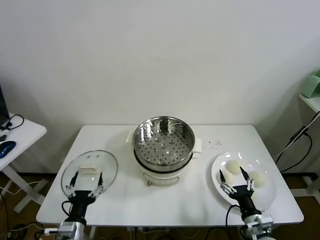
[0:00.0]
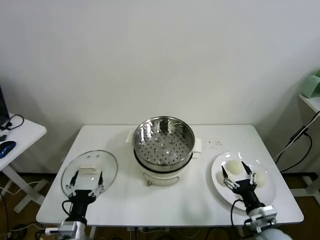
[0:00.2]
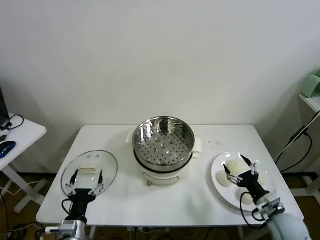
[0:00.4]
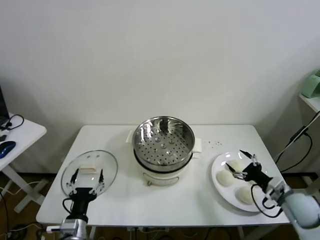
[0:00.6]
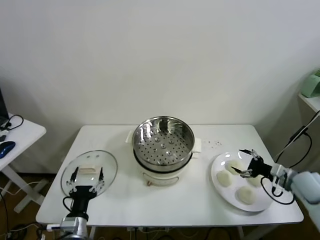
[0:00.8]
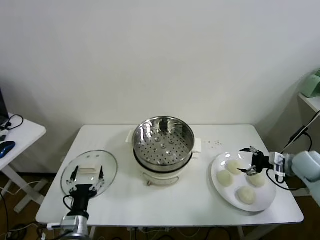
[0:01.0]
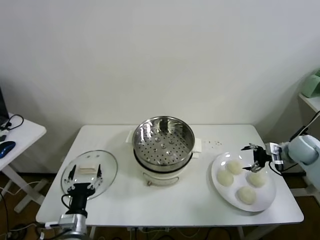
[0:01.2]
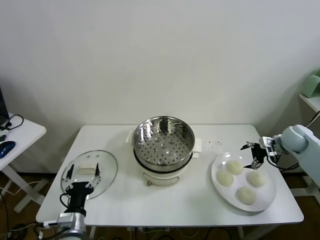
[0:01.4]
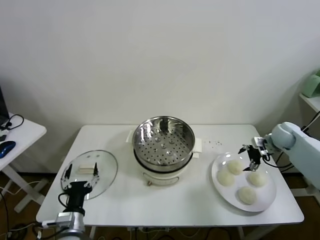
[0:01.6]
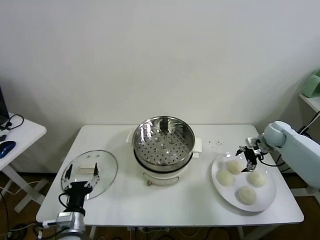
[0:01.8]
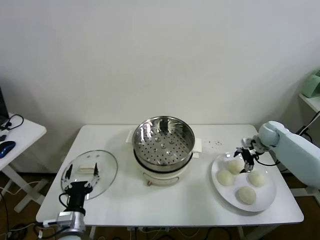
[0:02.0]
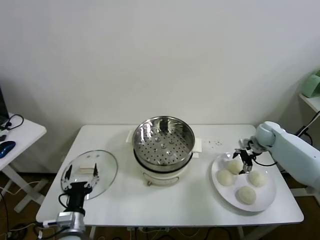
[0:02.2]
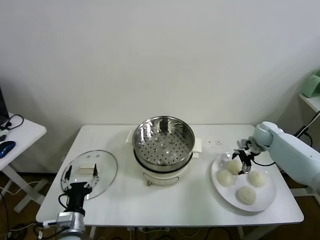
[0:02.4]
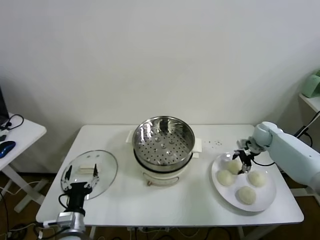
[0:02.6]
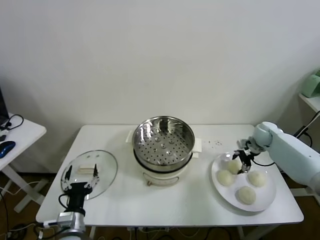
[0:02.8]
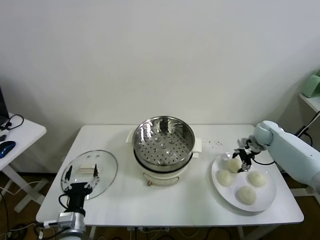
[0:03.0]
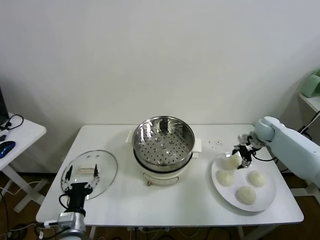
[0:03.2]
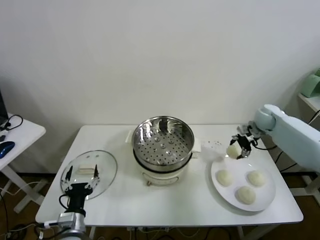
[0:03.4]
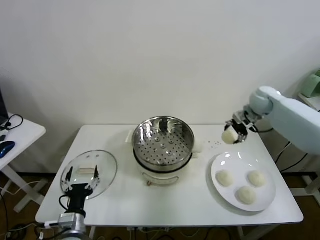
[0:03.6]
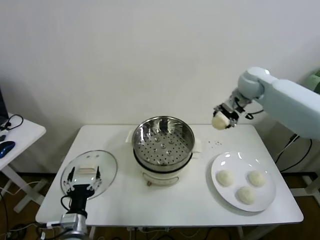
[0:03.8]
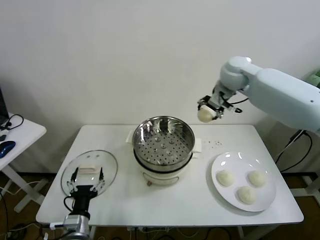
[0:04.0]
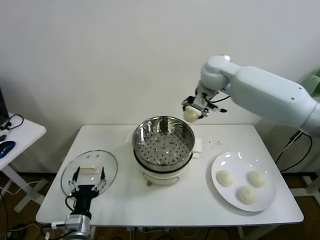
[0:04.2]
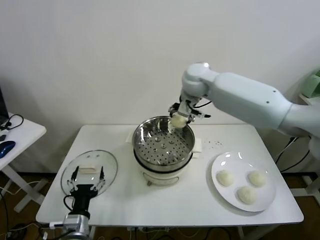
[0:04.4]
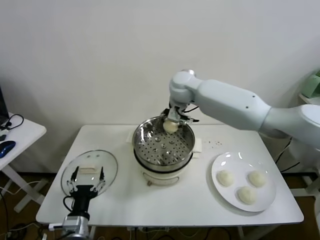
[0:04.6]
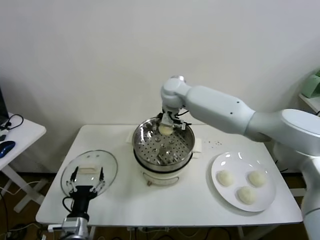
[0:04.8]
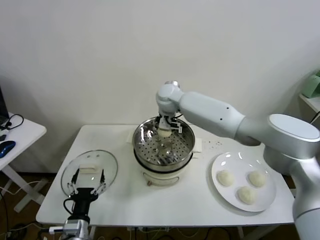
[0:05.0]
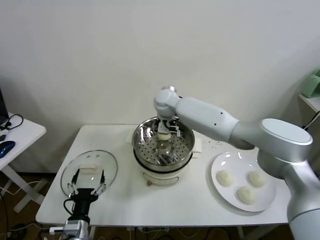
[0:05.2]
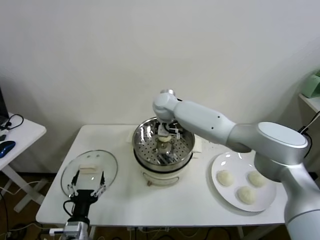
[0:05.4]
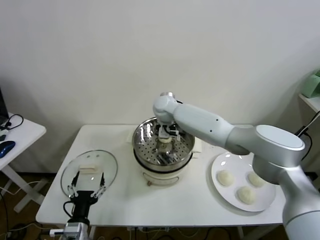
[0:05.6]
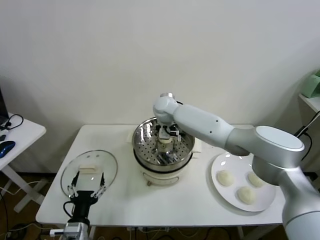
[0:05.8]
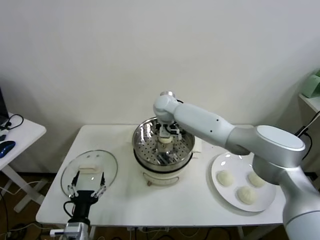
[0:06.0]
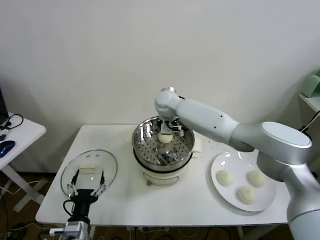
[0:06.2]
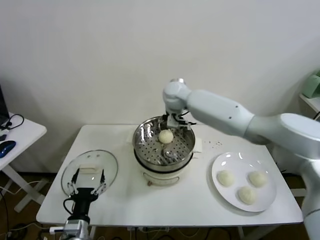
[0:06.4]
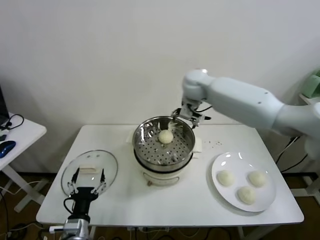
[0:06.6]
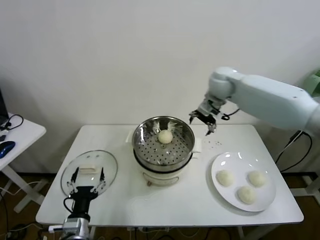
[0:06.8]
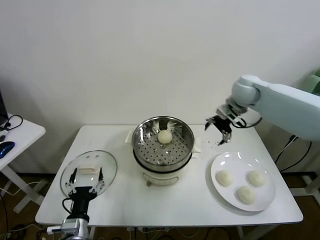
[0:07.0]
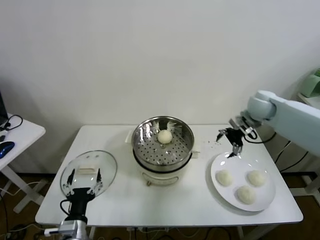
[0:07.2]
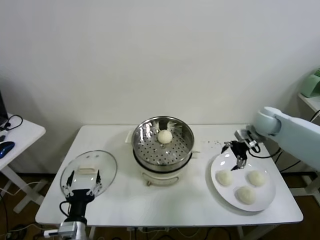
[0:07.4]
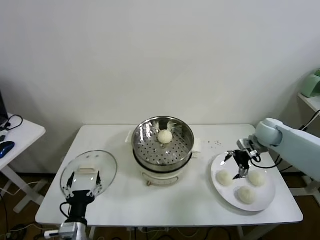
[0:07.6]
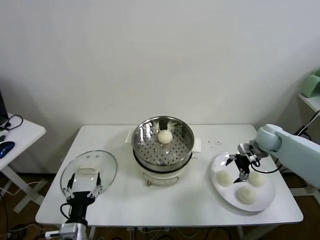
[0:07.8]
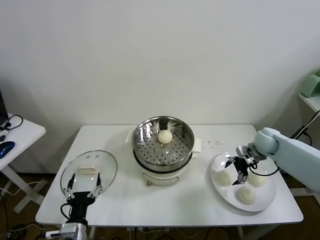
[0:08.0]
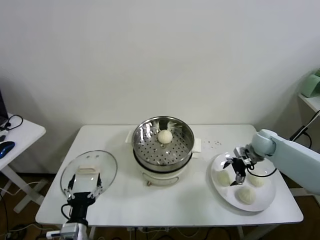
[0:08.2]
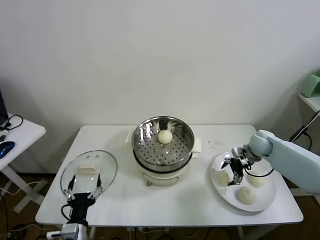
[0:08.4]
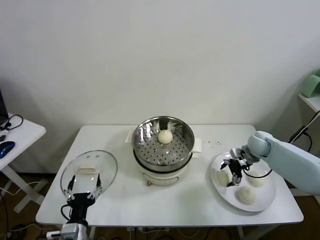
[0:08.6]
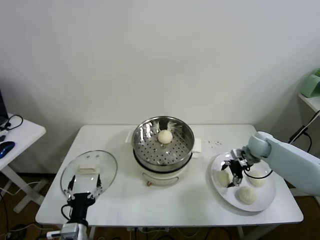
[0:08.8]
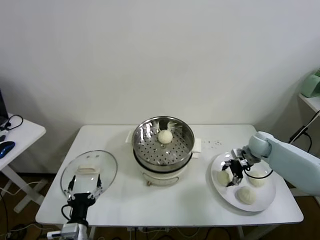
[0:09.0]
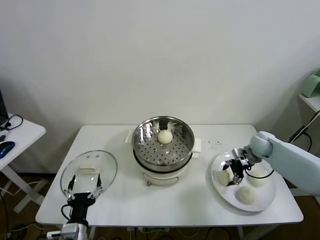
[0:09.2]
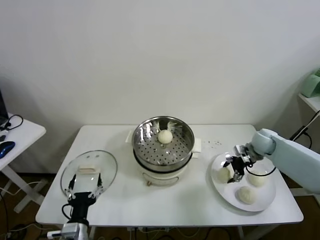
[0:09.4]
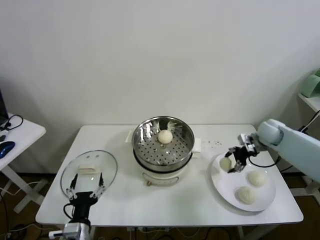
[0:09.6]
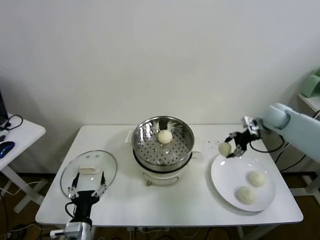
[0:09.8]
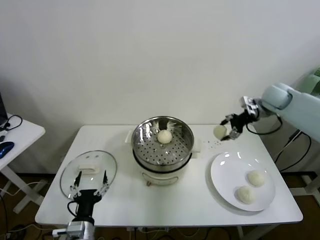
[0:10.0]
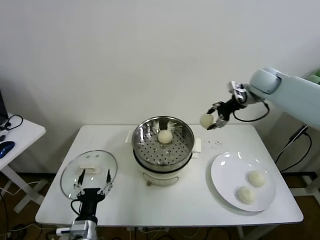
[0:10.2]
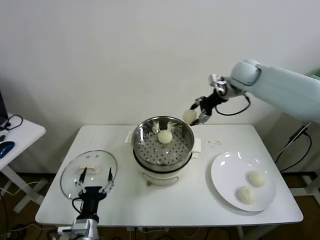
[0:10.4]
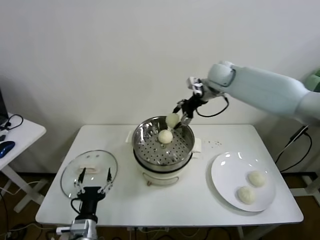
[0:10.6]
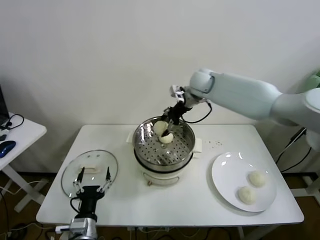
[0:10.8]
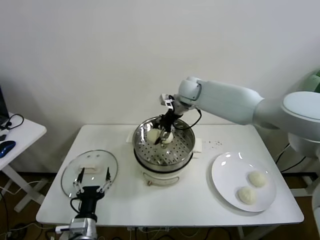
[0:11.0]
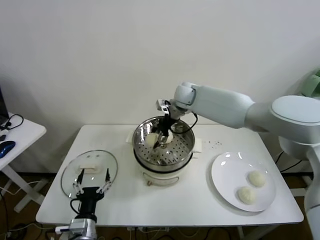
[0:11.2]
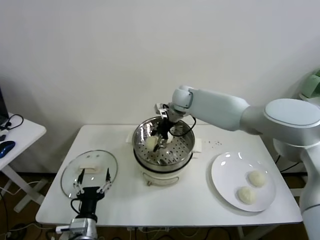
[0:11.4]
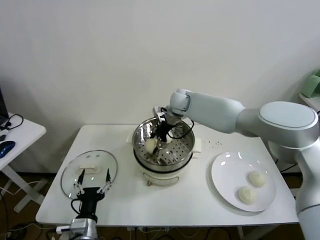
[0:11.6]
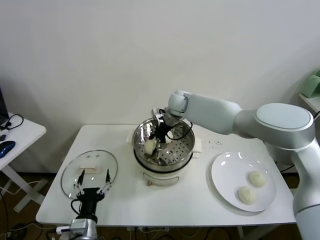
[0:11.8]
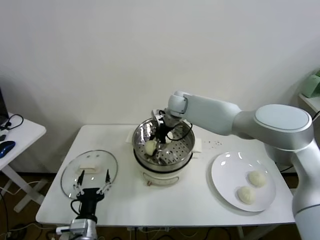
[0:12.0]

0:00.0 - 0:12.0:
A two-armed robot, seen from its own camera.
Task of the whole recording: take steamed baozi put them in steamer.
Step, 0:00.0 - 0:02.6: Grasp the baozi in the plate with right gripper.
Step, 0:02.8 - 0:06.0: Place the baozi on the steamer with right gripper.
Step, 0:06.4 - 0:09.0: Grasp the baozi in the plate with right gripper.
0:01.6 - 0:03.0: The right gripper closes.
0:03.0 - 0:04.4: The right gripper shifts roughly 40 cm to the left and upward.
0:04.4 - 0:06.0: The right gripper goes some 15 cm downward and to the left, and opens up.
0:06.0 - 0:07.6: The right gripper shifts roughly 40 cm to the right.
0:07.6 - 0:09.0: The right gripper goes approximately 5 cm downward, and closes.
0:09.0 - 0:10.4: The right gripper heads upward and to the left, covering about 30 cm.
0:10.4 - 0:12.0: The right gripper travels to the left and downward by roughly 20 cm.

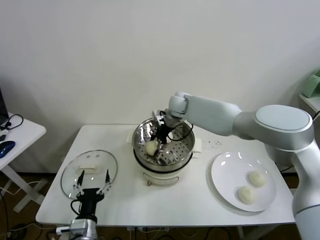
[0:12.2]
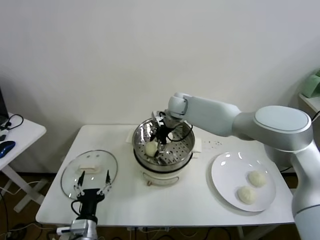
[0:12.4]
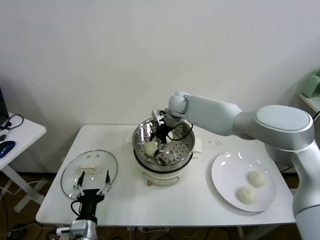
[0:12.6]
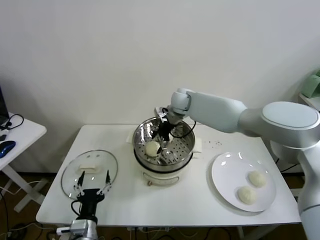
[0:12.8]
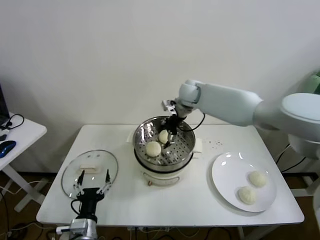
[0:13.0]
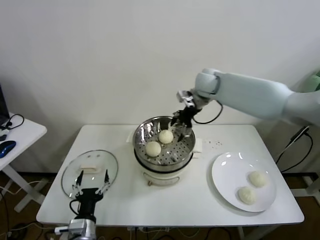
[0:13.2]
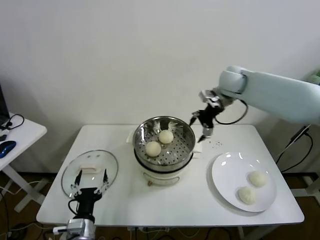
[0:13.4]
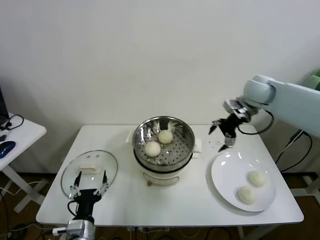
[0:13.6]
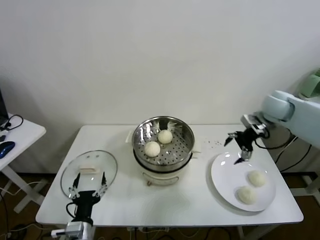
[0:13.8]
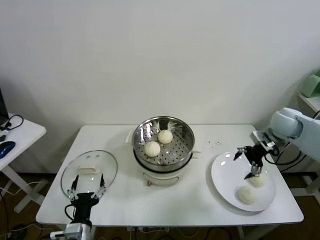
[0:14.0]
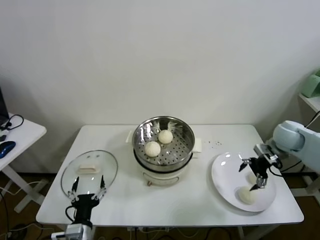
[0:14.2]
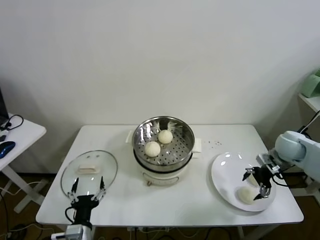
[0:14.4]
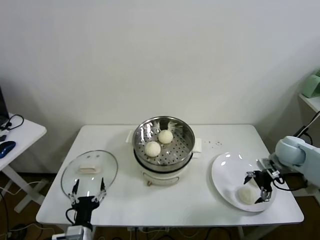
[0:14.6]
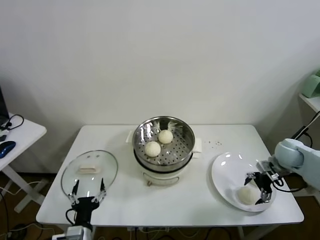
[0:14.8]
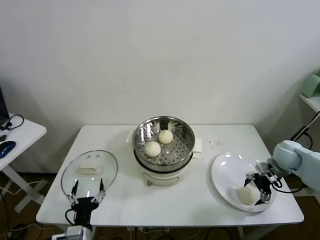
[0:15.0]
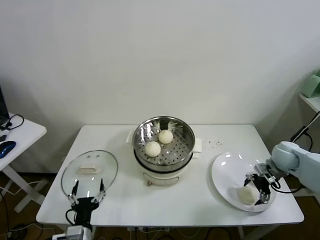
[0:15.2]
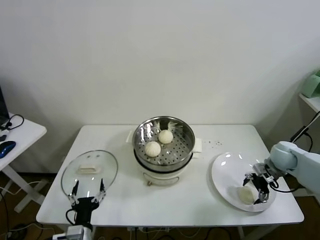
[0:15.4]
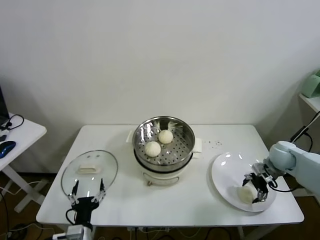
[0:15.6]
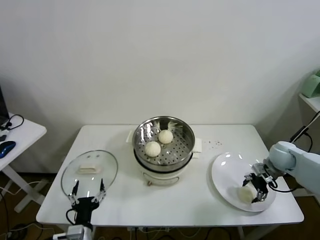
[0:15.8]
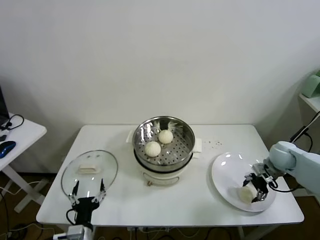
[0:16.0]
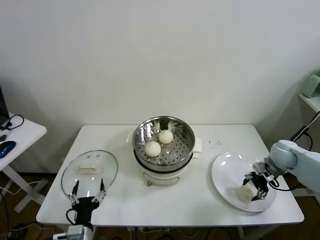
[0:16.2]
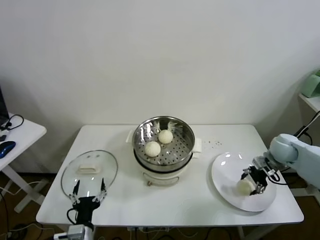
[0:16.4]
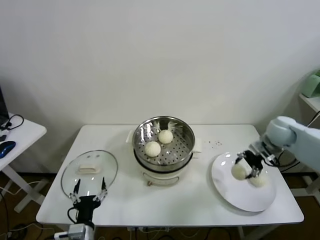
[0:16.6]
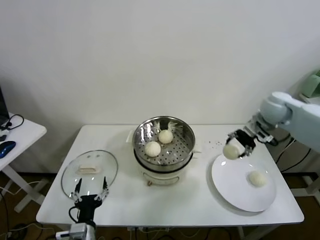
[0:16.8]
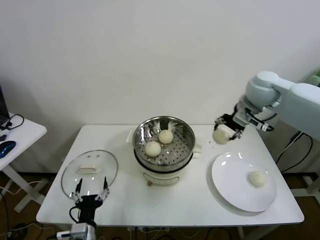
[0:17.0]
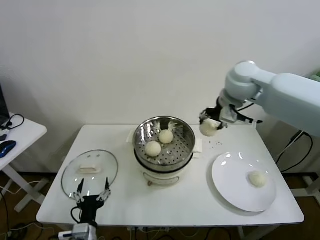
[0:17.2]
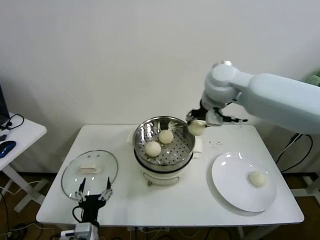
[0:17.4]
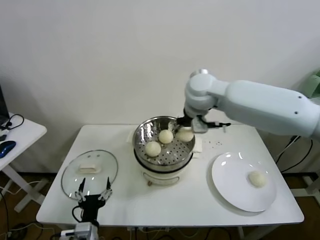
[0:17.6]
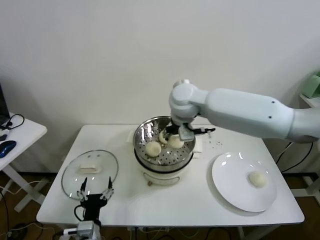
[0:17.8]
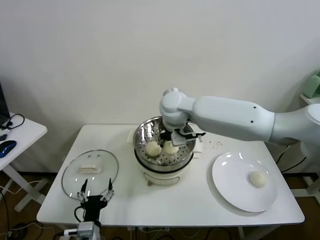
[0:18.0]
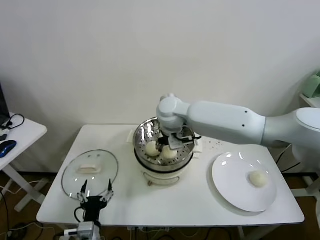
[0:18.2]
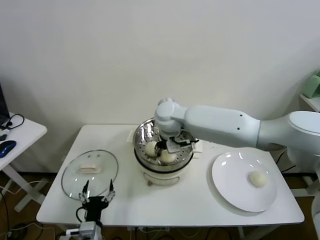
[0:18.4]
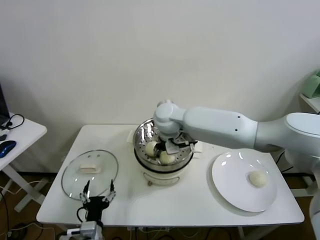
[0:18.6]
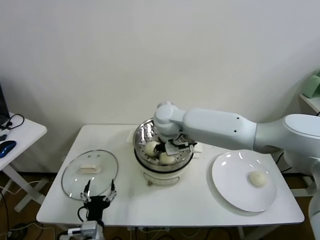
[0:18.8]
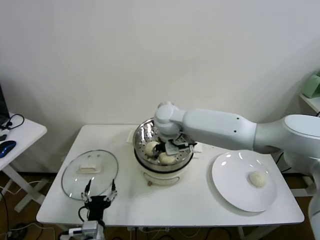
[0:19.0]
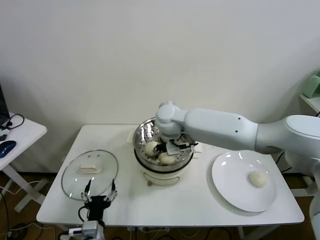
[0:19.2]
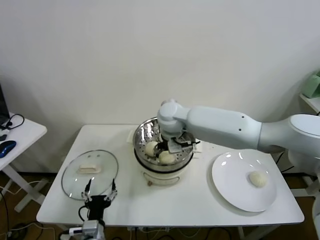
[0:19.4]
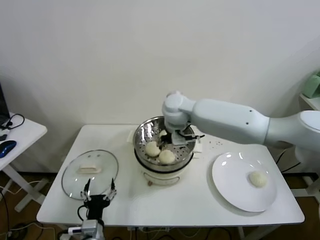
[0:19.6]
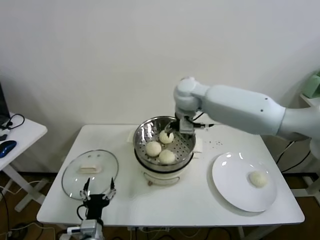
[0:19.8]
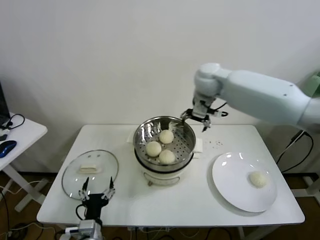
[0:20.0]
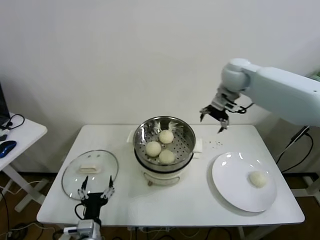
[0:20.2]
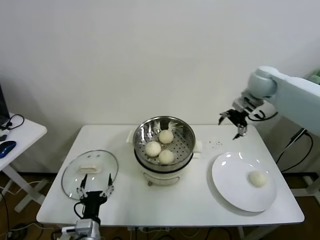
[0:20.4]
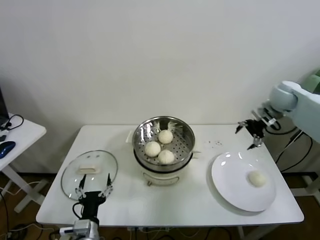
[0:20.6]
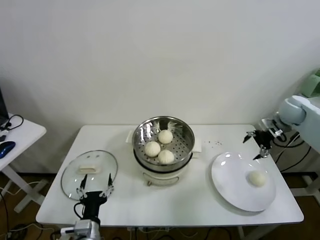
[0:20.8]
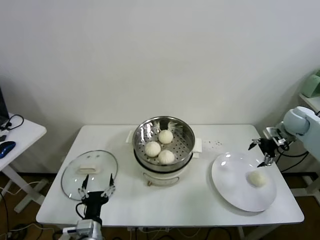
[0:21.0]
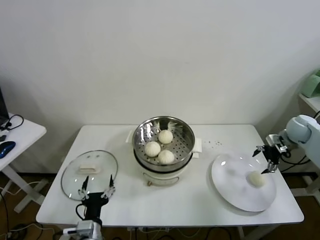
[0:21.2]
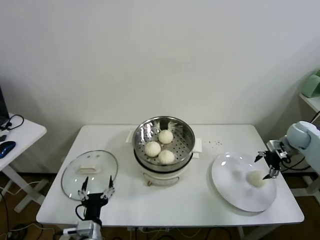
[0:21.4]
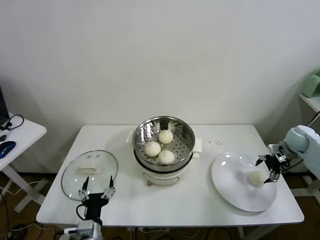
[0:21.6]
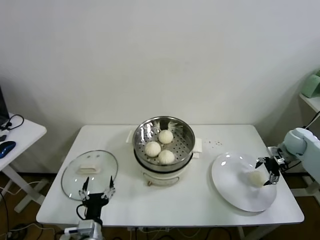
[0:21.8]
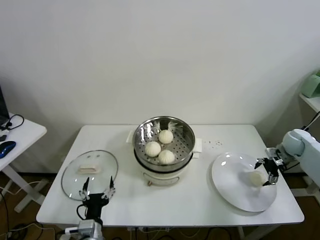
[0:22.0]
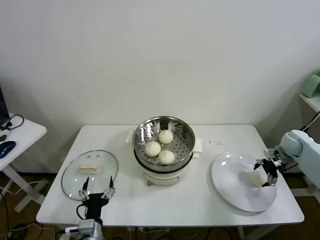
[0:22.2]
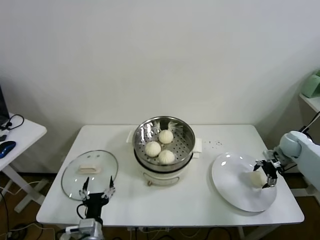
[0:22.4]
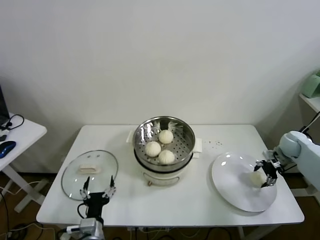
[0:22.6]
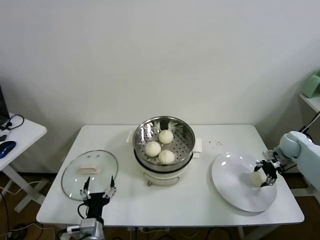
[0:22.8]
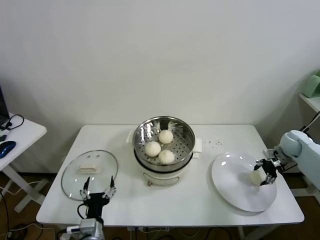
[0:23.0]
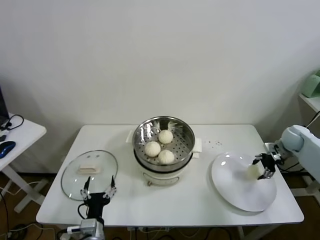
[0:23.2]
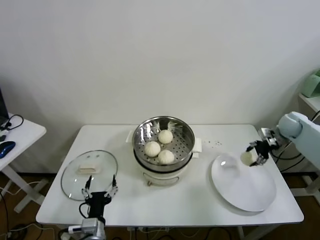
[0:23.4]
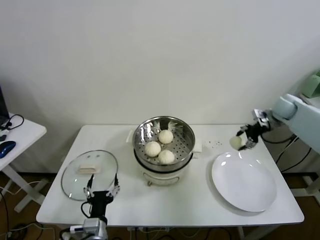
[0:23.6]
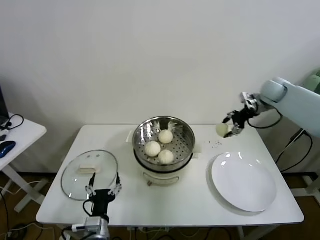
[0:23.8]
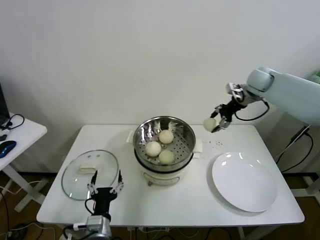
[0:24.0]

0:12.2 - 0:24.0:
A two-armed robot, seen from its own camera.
Task of the whole recording: take steamed baozi put them in steamer.
Step, 0:13.0 - 0:16.0: Grasp the baozi in the plate with right gripper.
Step, 0:16.2 - 0:19.4: Place the baozi on the steamer with right gripper.
Step, 0:19.6 - 0:22.6: Grasp the baozi in the plate with right gripper.
0:12.2 - 0:13.6: The right gripper heads to the right, covering roughly 25 cm, and opens its fingers.
0:13.6 - 0:15.2: The right gripper is displaced downward, to the right and backward by some 25 cm.
0:15.2 - 0:16.6: The right gripper heads upward, covering about 10 cm, and closes up.
0:16.6 - 0:18.2: The right gripper travels to the left by about 40 cm.
0:18.2 - 0:19.6: The right gripper opens.
0:19.6 - 0:21.0: The right gripper is displaced to the right by roughly 40 cm.
0:21.0 - 0:22.6: The right gripper shifts some 10 cm downward, and closes up.
0:22.6 - 0:24.0: The right gripper shifts approximately 30 cm upward, to the left and forward, and closes up.
